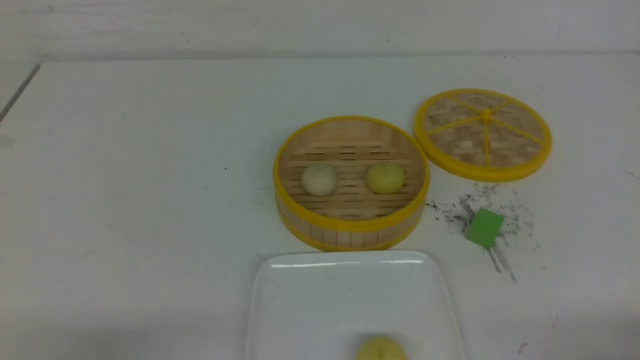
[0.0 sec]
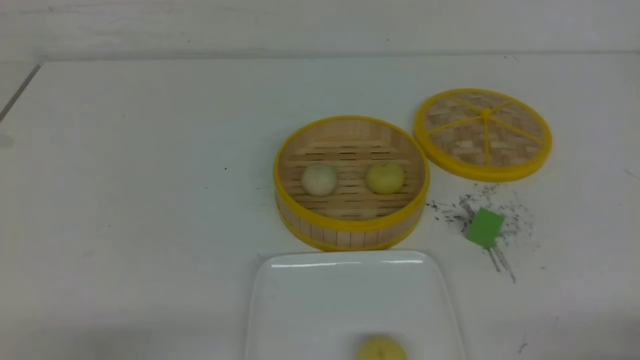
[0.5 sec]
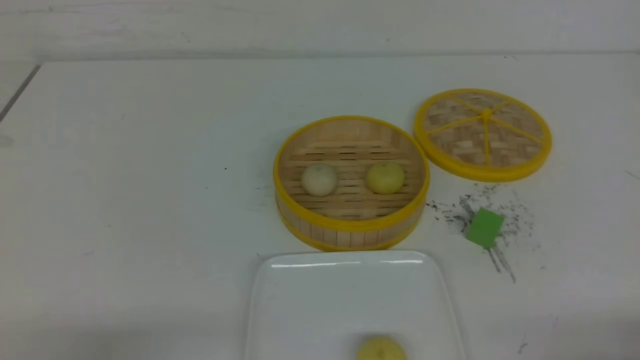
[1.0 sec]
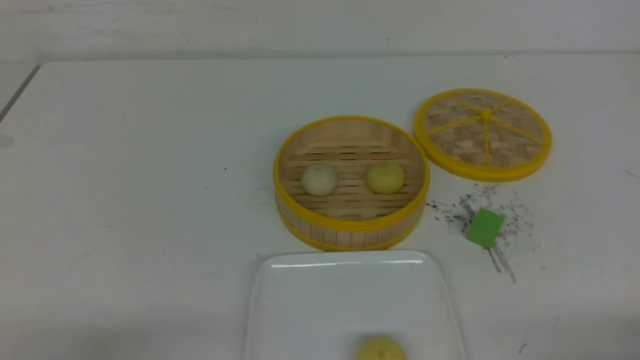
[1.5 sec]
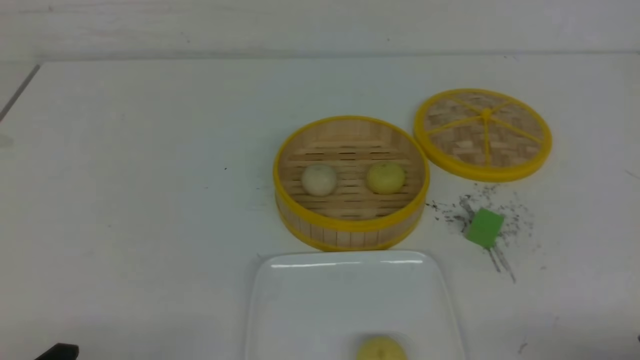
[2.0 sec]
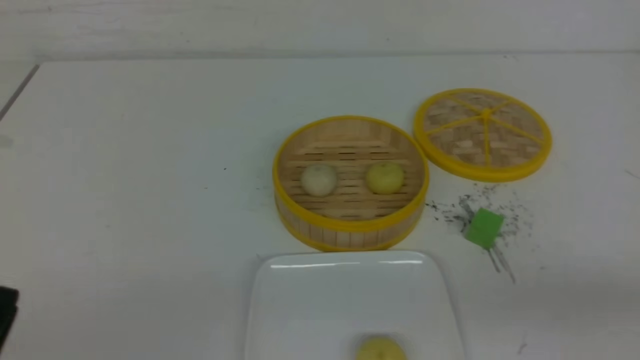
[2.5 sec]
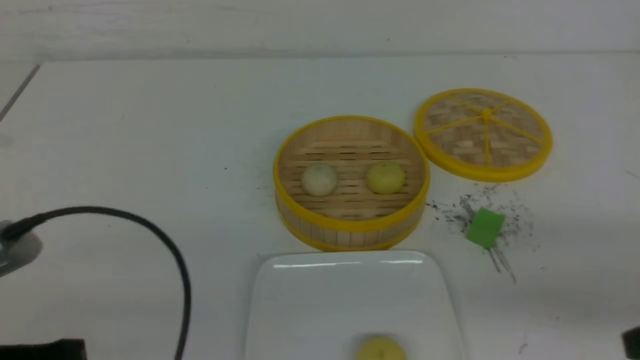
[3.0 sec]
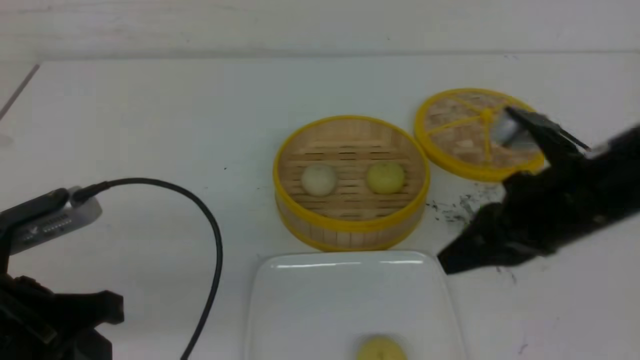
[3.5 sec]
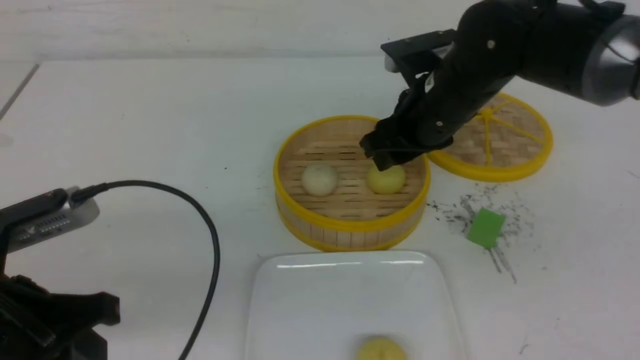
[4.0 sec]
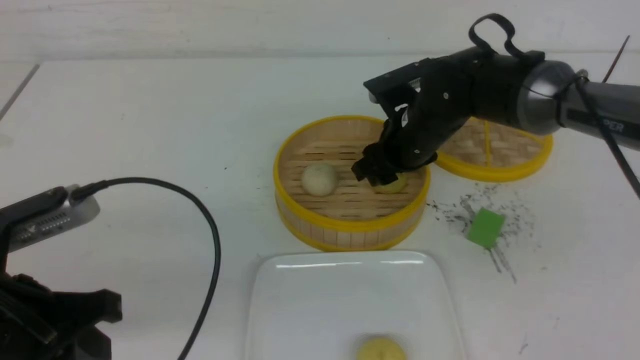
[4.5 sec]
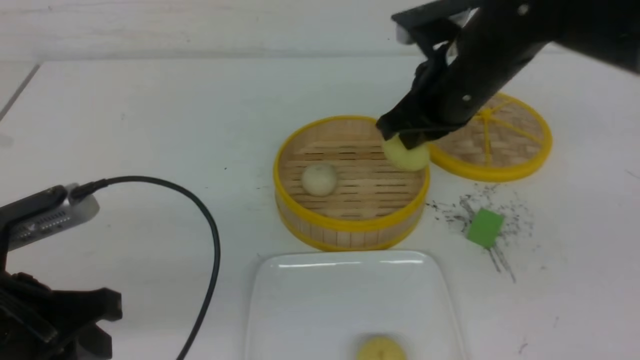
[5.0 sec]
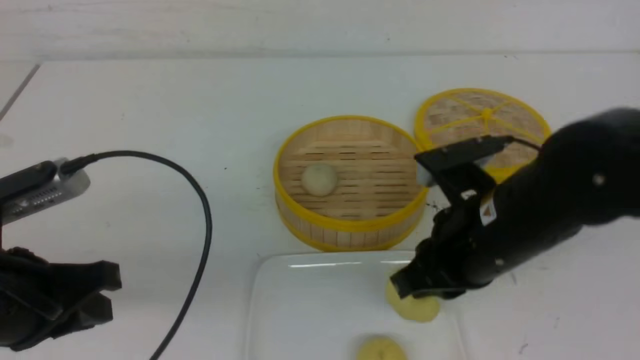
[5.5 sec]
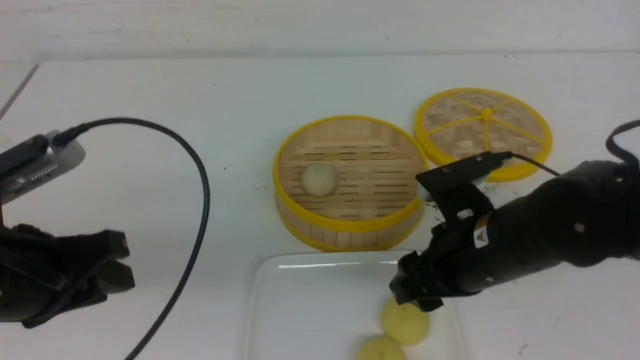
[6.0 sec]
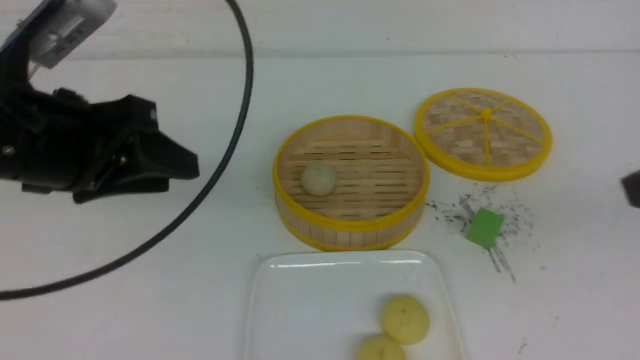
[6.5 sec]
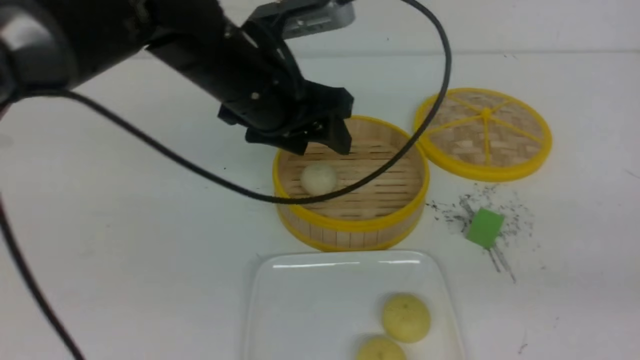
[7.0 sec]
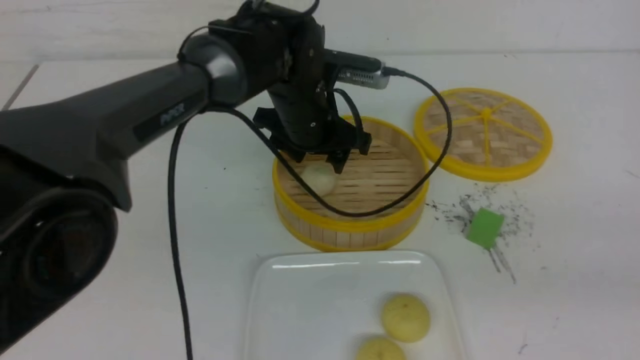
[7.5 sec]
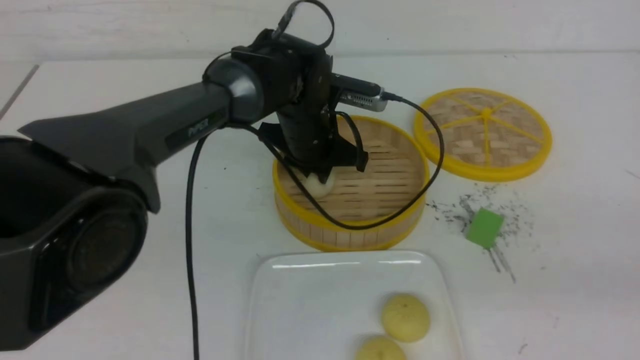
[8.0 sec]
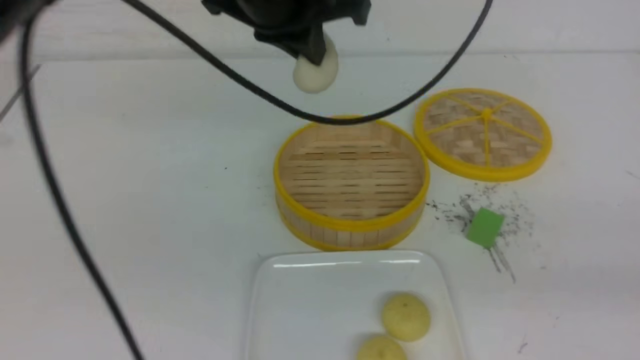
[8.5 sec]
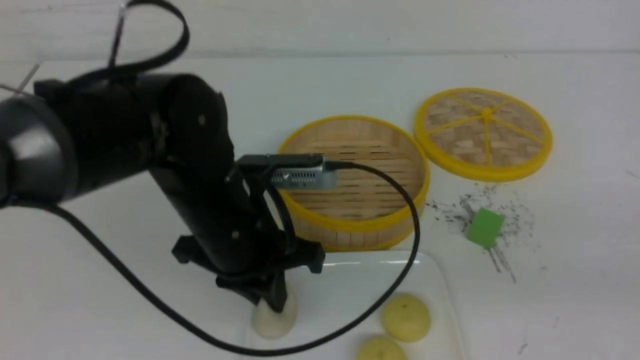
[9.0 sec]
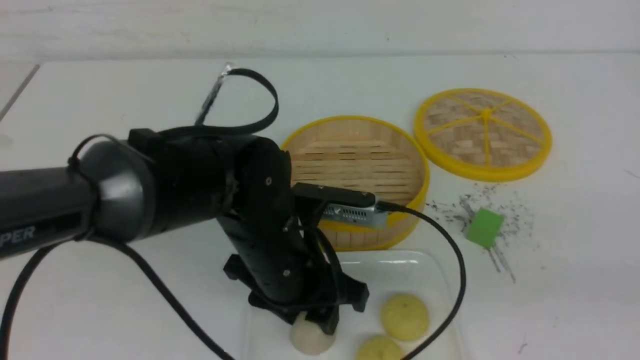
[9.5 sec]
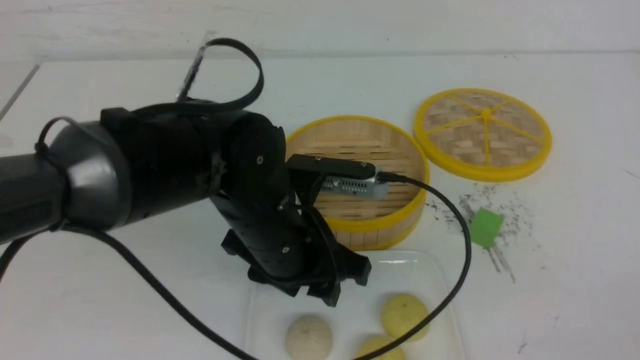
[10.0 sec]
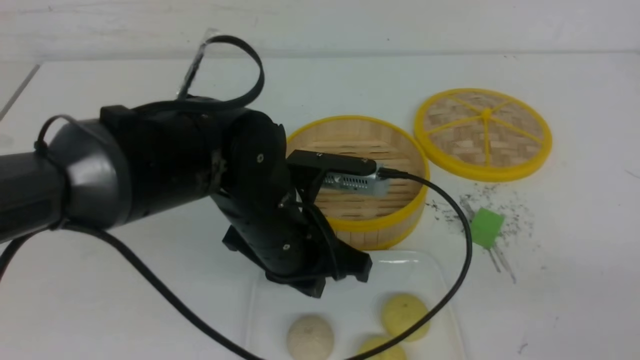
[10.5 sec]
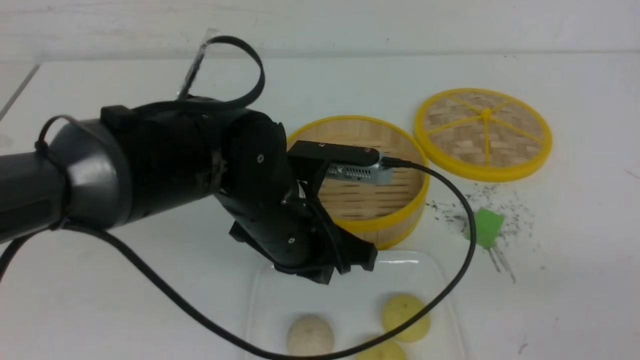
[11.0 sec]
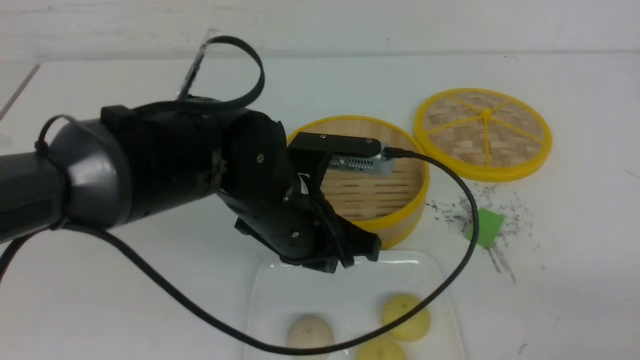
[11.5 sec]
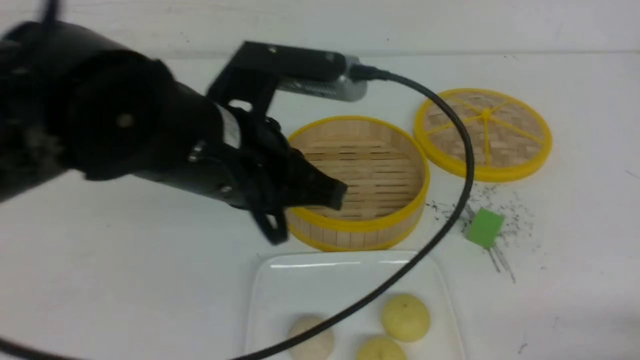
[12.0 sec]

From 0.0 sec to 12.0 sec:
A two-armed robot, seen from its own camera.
Step, from 0.0 sec to 4.5 sec: use the right arm to grab the steamed stuffed bun that is closest to it.
Step, from 5.0 sec to 6.0 sec: use the right arm to put the steamed stuffed bun into the plate.
Step, from 6.5 sec to 8.0 sec: use the left arm to grab the steamed stuffed bun that is closest to it.
Step, from 8.5 sec to 9.5 sec: use the left arm to put the steamed stuffed bun into the plate.
From 2.0 sec to 4.0 sec: The left gripper heads forward and upward, covering about 15 cm. The right gripper is displaced forward and to the left by roughly 40 cm, and closes, then reopens.
From 4.0 sec to 6.0 sec: The right gripper is displaced backward by roughly 15 cm, and closes and opens again, while the left gripper opens up.
From 6.0 sec to 8.0 sec: The left gripper is displaced forward and to the right by some 30 cm, and opens and closes again; the right gripper shifts roughly 30 cm to the right, backward and upward, and closes.
From 8.0 sec to 10.0 sec: The right gripper heads backward, covering roughly 5 cm; the left gripper shifts roughly 15 cm backward, and opens its fingers.
From 10.0 sec to 12.0 sec: The left gripper heads upward, covering approximately 10 cm, and closes its fingers; the right gripper is displaced downward and forward by about 20 cm.

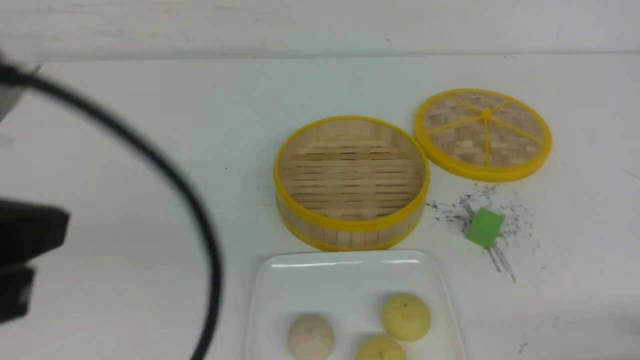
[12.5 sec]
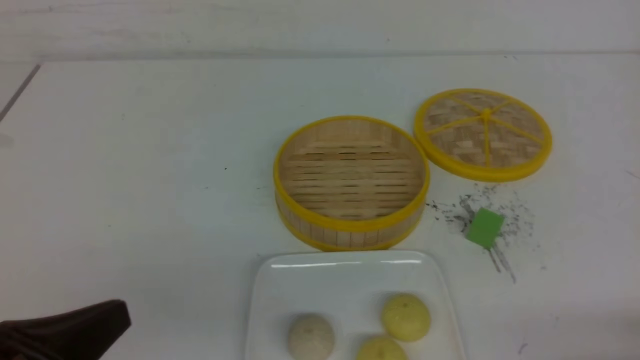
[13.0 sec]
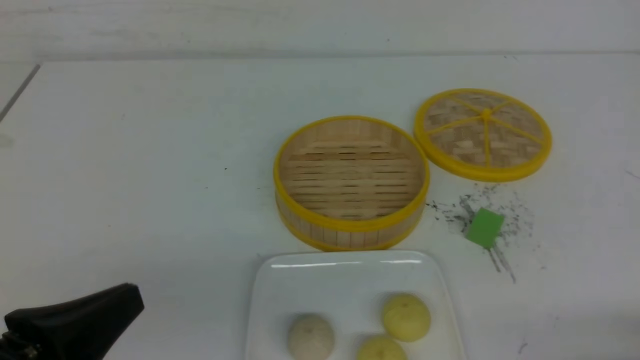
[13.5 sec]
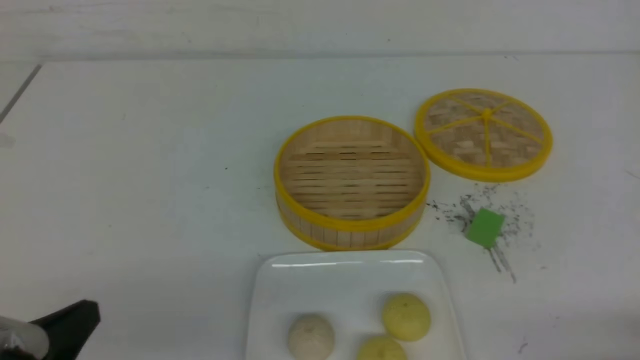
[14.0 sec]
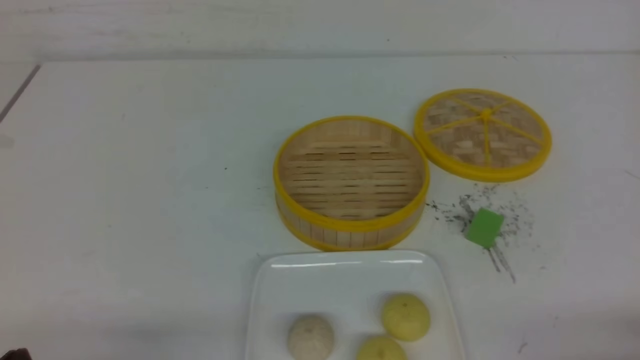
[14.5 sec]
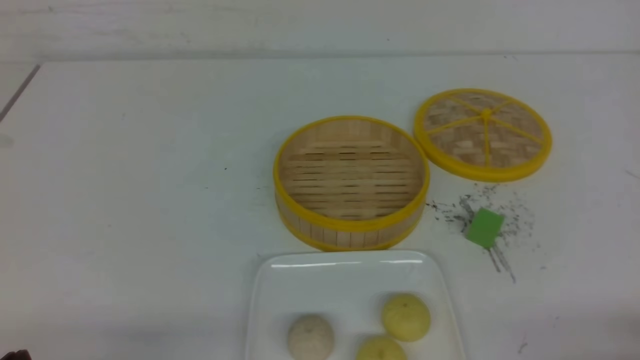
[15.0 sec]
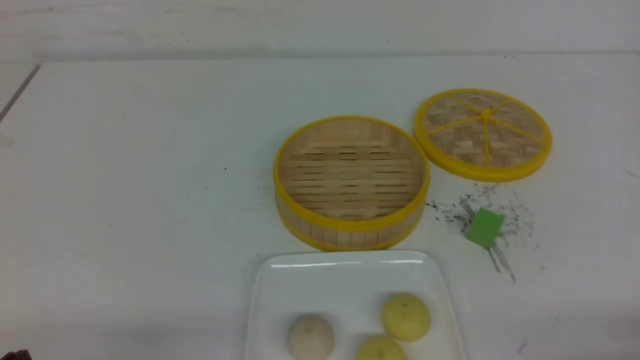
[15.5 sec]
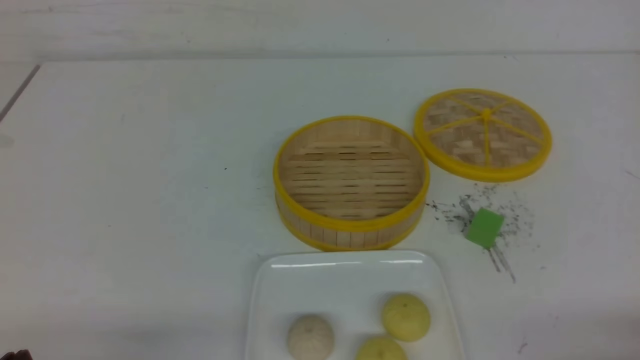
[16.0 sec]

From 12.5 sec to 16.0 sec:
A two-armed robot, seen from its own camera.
From 12.5 sec to 14.5 sec: The left gripper goes some 20 cm downward.
From 14.5 sec to 16.0 sec: Neither gripper changes place.
